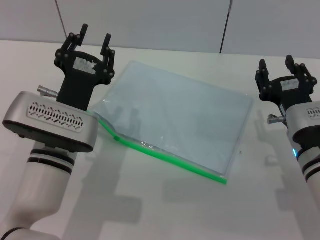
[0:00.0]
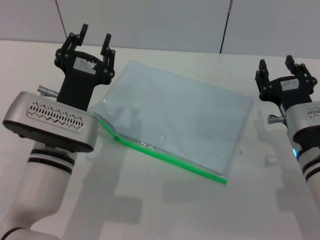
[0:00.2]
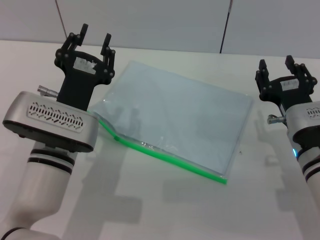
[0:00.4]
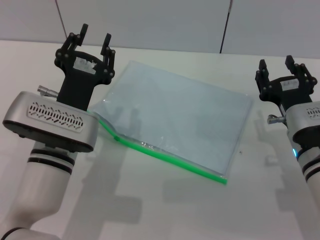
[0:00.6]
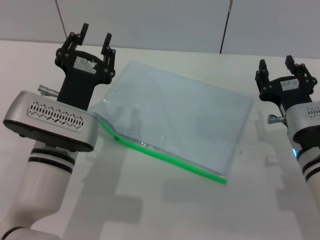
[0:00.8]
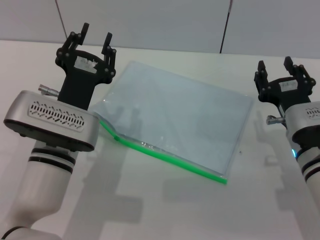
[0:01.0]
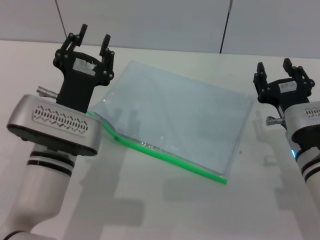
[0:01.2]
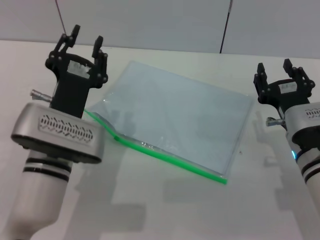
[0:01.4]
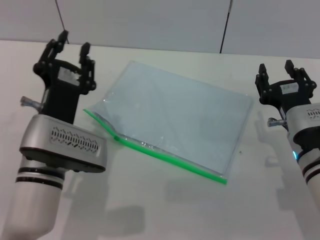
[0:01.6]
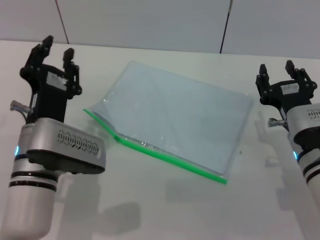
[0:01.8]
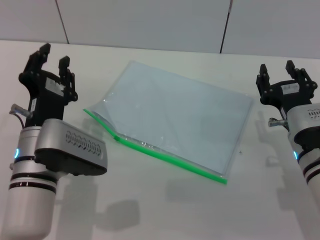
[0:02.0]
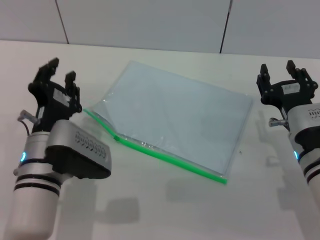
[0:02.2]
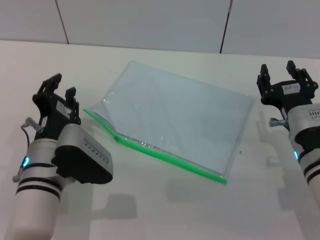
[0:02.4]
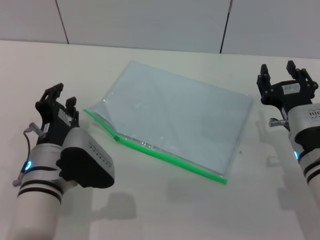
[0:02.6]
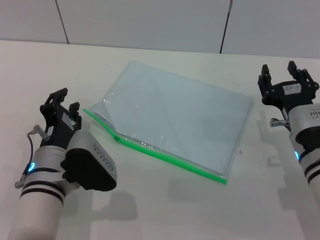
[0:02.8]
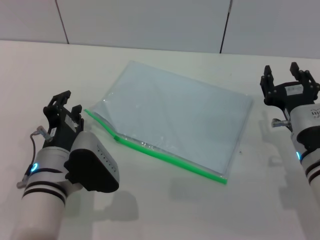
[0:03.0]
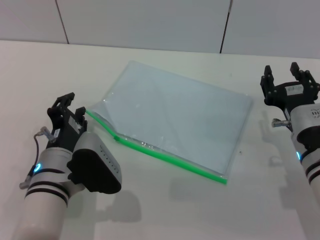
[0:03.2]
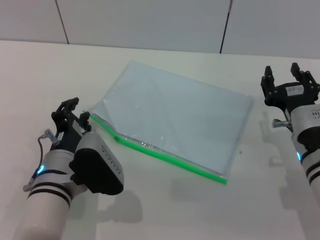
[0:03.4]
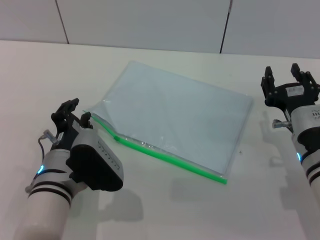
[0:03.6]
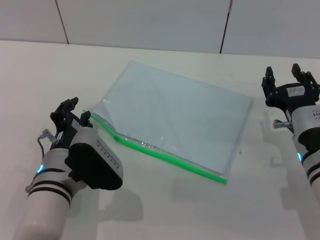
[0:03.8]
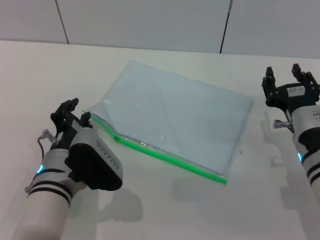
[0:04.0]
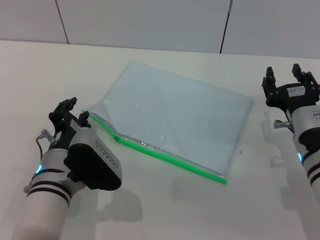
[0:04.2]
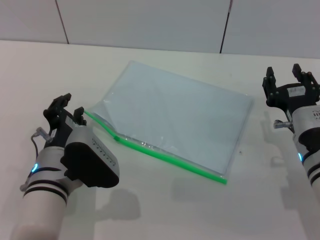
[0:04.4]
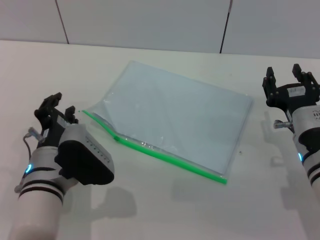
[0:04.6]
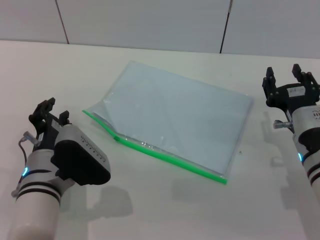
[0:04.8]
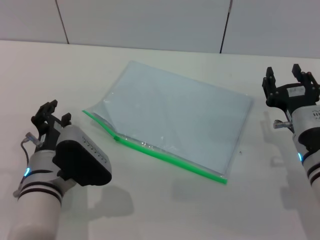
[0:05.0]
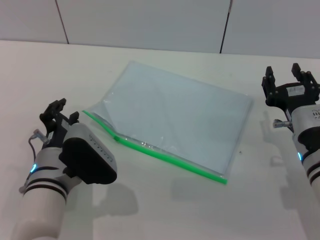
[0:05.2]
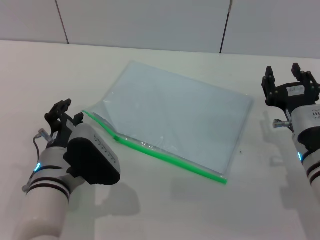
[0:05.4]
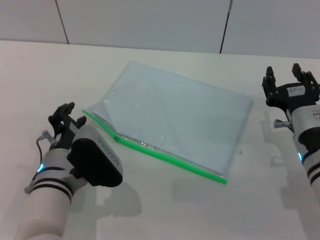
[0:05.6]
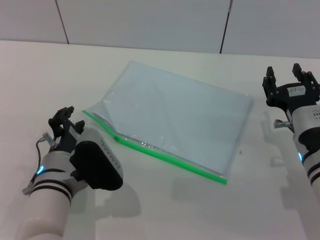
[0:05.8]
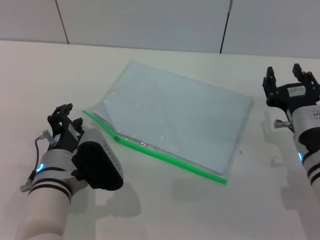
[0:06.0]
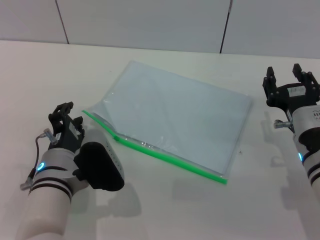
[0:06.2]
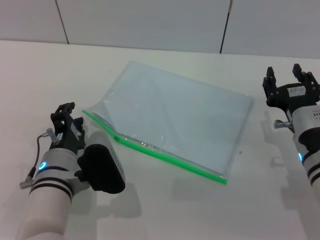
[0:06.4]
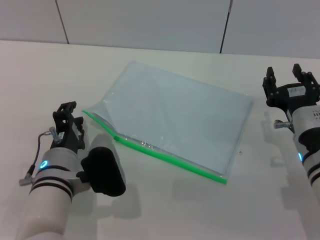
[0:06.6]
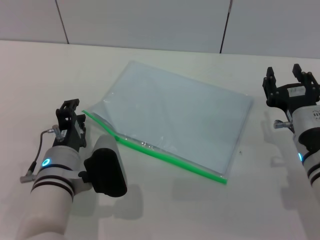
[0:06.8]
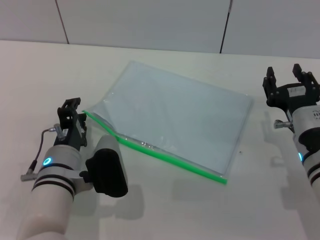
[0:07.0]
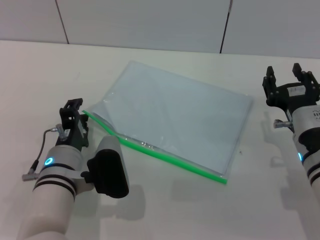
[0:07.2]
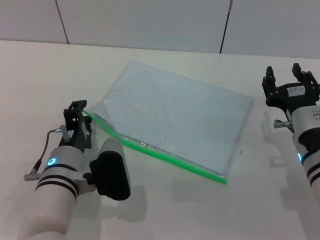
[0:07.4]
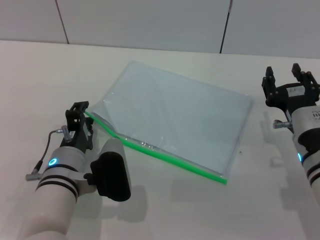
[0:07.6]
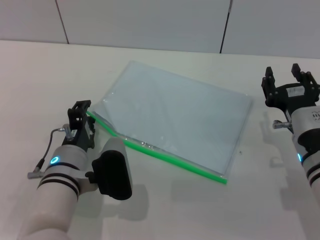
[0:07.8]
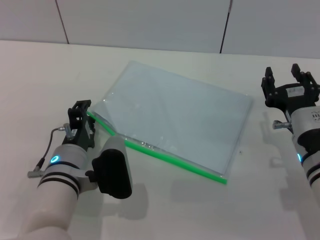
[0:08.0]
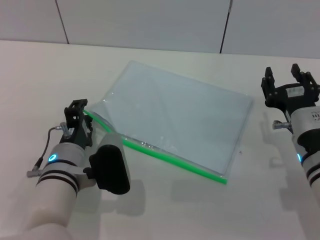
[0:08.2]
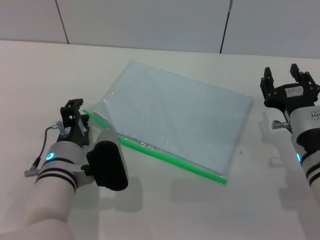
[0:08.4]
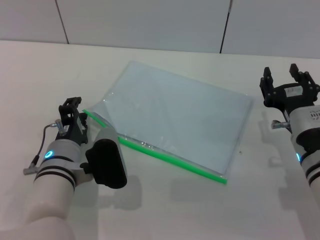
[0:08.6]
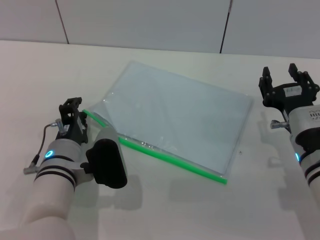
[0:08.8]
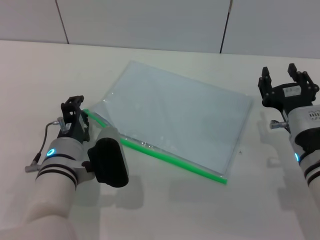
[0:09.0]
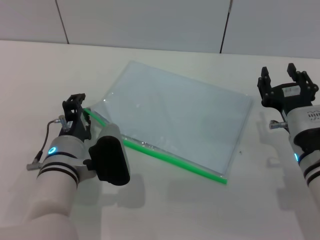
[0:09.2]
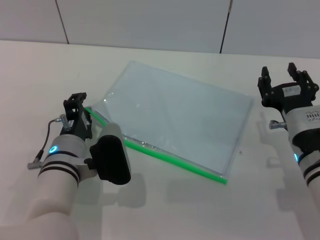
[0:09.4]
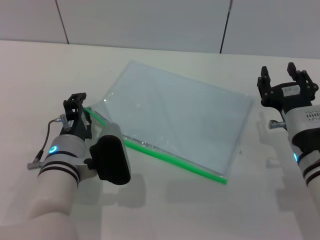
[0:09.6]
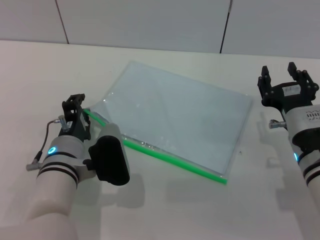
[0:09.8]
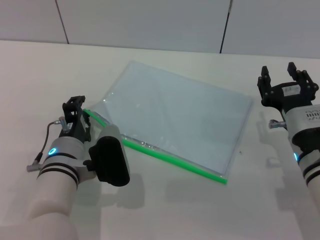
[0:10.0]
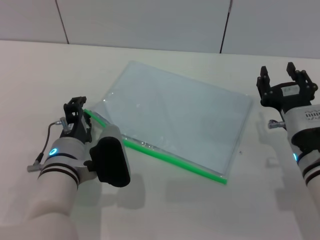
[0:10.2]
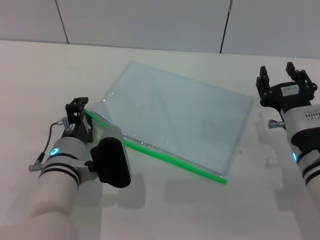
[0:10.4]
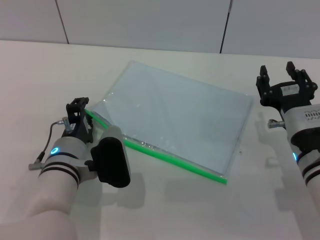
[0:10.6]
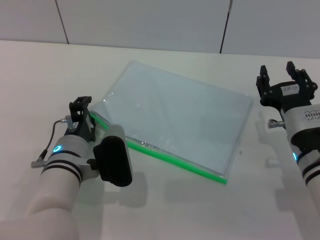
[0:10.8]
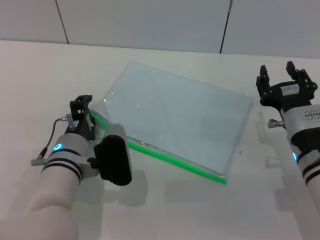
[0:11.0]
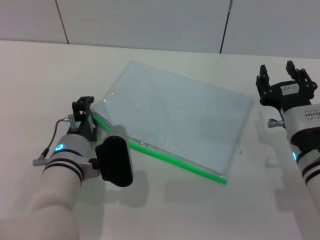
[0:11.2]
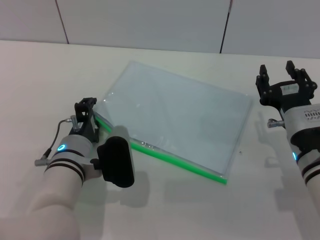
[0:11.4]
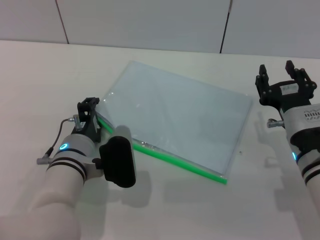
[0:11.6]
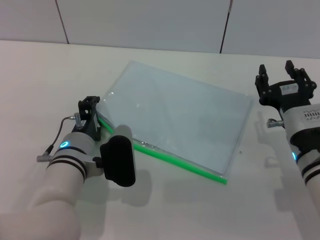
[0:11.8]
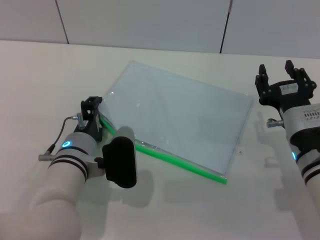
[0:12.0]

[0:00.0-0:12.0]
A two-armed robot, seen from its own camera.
0:00.0 to 0:01.6: The grippers make only small movements.
0:03.0 to 0:09.0: The grippers make only small movements.
0:09.0 to 0:10.4: The two grippers keep their place.
0:10.4 to 0:12.0: There are only small adjustments of the grippers.

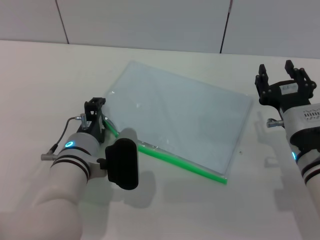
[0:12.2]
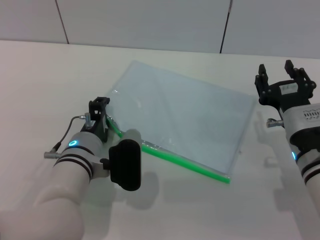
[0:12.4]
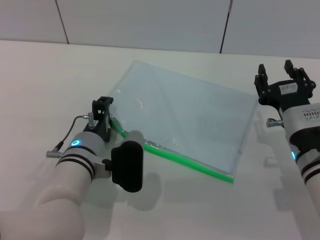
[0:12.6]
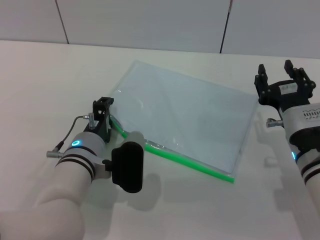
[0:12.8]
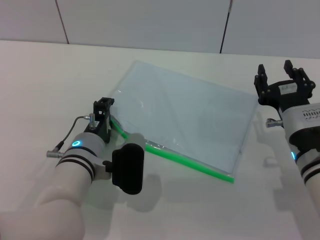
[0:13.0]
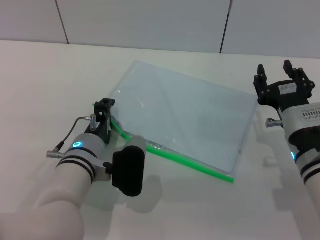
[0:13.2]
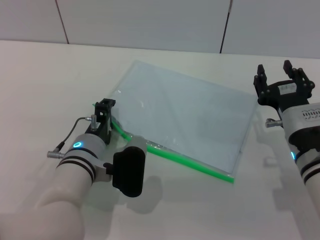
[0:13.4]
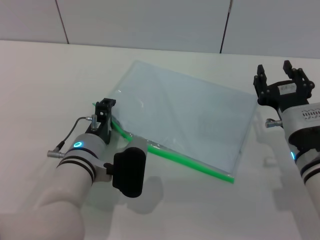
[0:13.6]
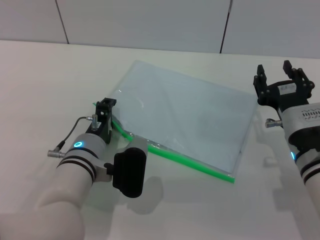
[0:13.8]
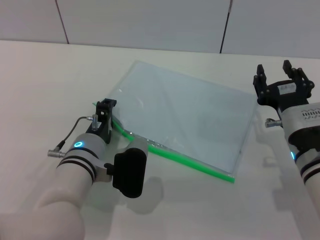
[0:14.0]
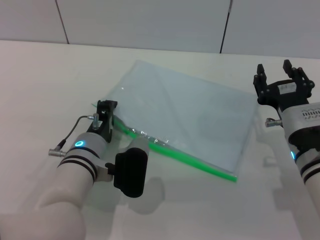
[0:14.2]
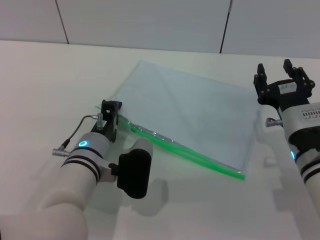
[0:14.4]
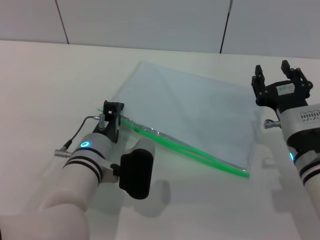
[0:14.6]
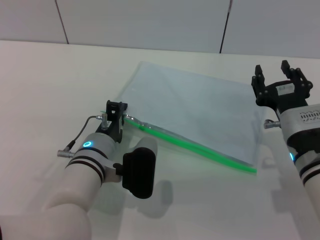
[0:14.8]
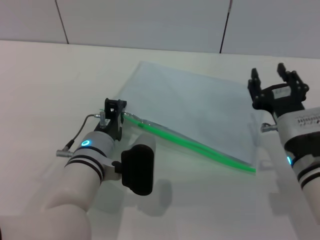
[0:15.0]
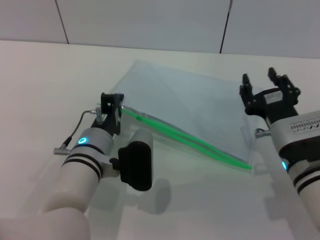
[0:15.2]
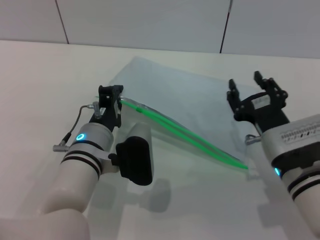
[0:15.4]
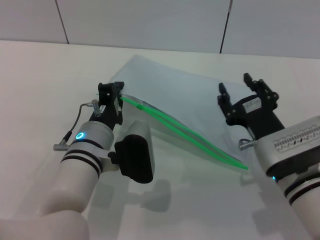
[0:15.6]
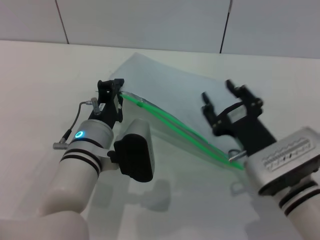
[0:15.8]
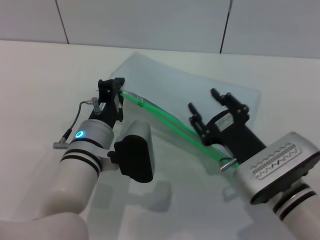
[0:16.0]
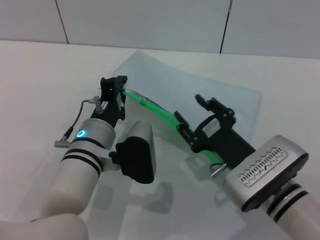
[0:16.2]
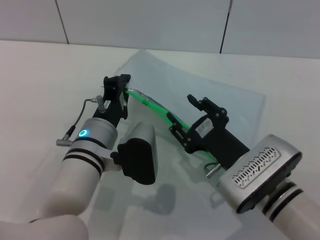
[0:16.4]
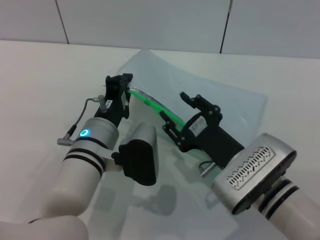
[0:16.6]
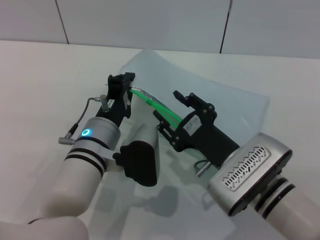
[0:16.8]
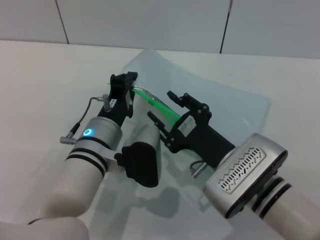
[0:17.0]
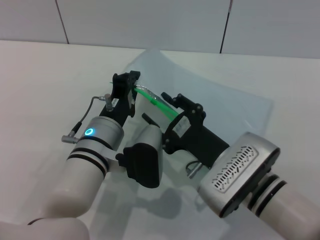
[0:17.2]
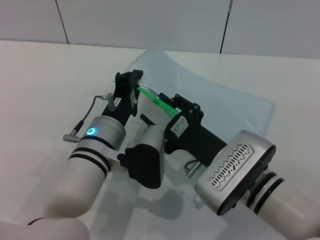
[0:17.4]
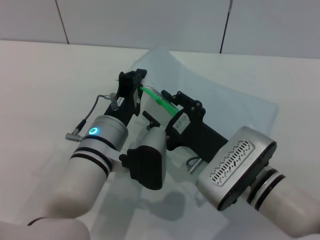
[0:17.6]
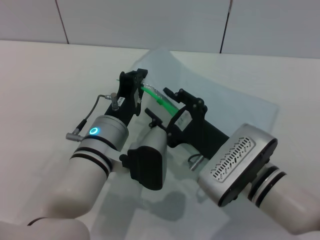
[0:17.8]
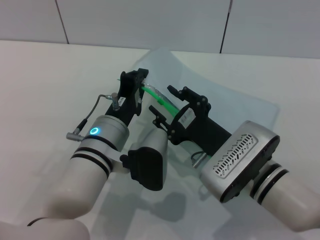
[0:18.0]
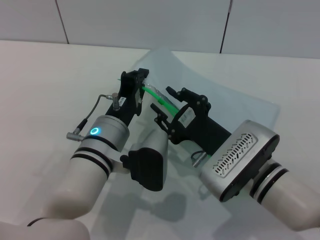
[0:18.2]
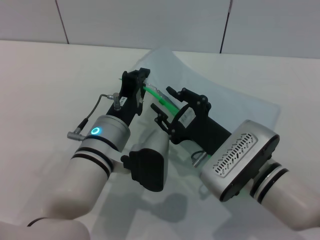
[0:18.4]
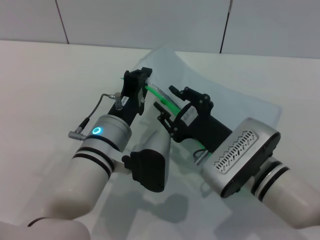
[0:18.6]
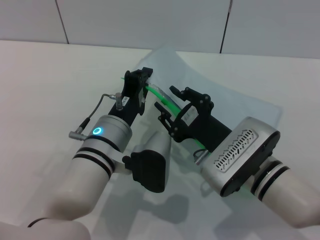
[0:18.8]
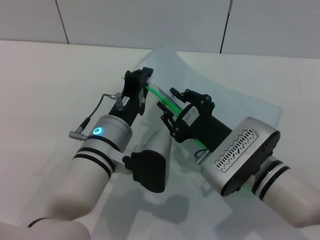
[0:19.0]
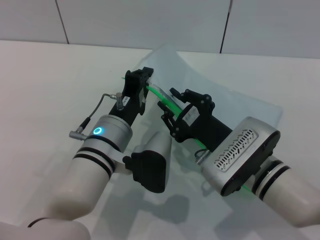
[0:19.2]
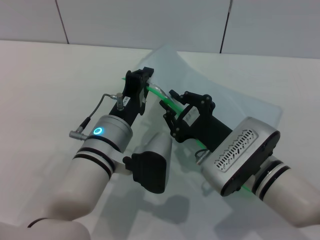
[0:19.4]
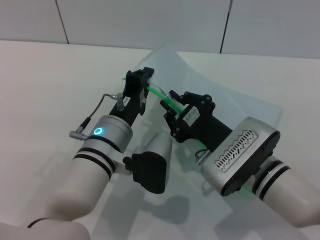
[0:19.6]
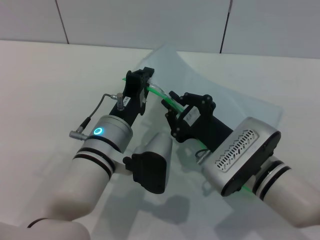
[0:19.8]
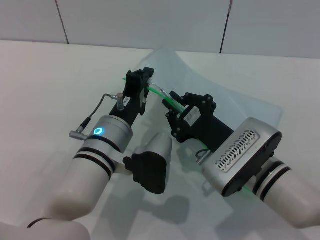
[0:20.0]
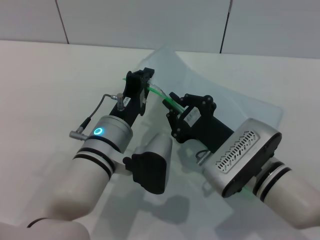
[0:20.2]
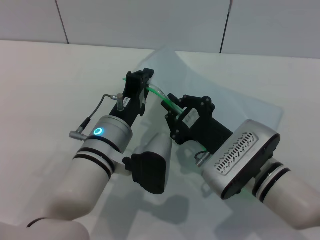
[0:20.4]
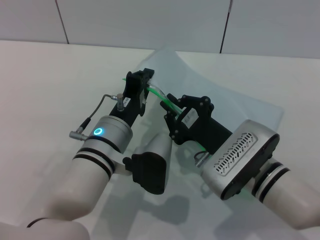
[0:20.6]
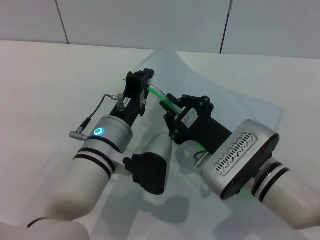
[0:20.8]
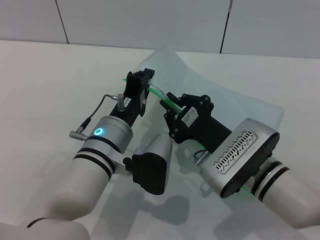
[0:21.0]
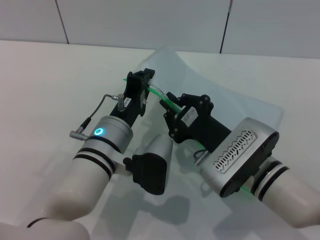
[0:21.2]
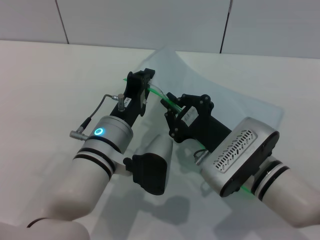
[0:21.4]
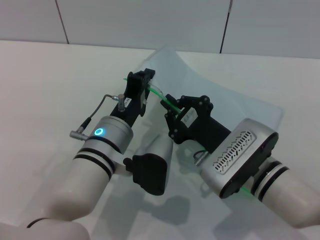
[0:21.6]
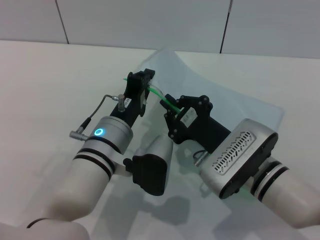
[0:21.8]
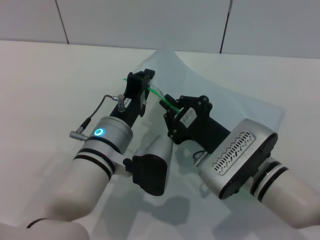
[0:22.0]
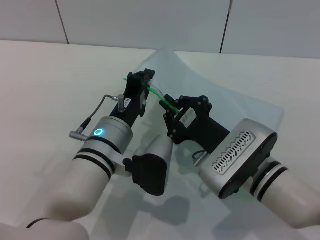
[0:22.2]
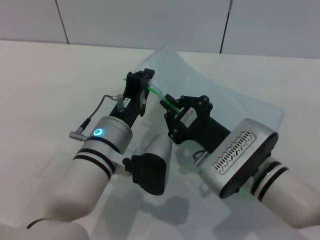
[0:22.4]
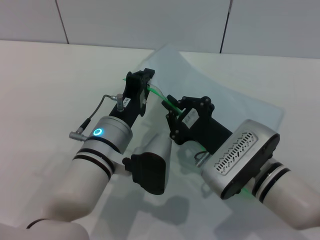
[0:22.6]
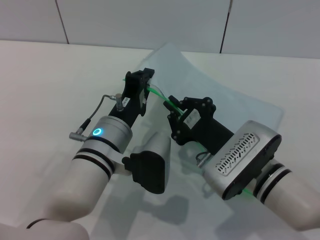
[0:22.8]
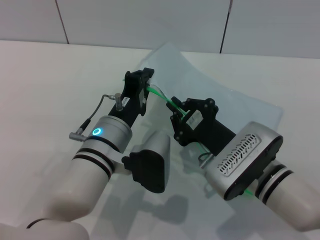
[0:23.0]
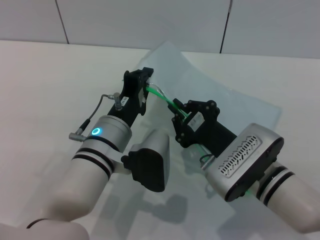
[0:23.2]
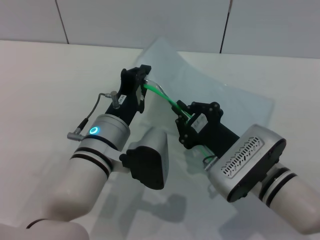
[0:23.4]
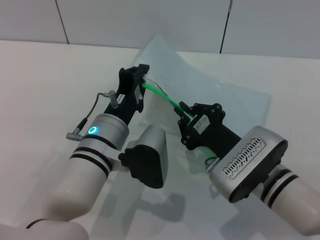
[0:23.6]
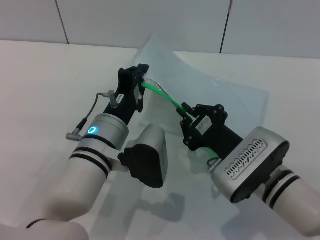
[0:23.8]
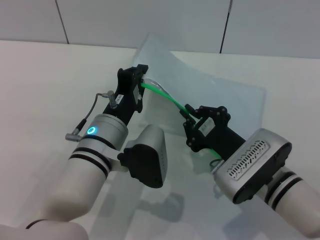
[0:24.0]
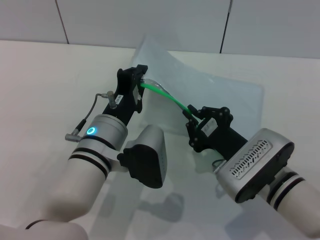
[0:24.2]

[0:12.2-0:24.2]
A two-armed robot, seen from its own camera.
Step, 0:12.2 to 0:16.6: Pick up the transparent plastic bag with the left gripper.
0:12.2 to 0:13.8: There are only small adjustments of the grippers.
0:13.8 to 0:15.2: The left gripper closes its fingers.
0:15.2 to 0:16.6: The right gripper moves to the left, roughly 5 cm.
0:16.6 to 0:18.2: The grippers move only a little.
0:18.2 to 0:19.8: The right gripper closes up.
0:19.8 to 0:22.6: The two grippers keep their place.
0:22.6 to 0:24.2: The grippers stay close to where they were, moving slightly.
